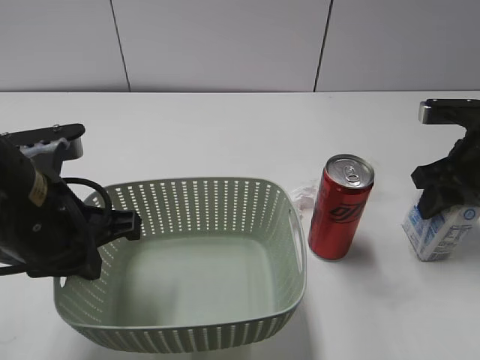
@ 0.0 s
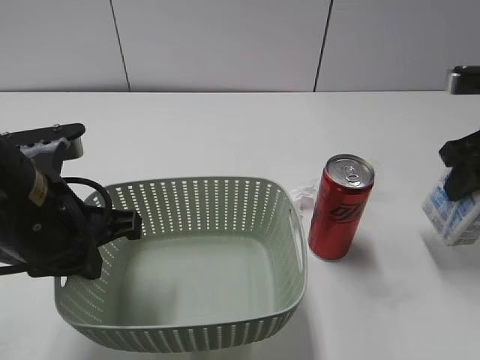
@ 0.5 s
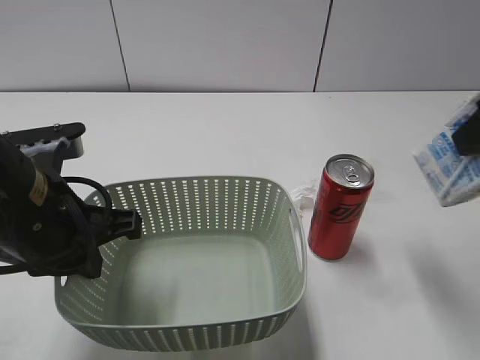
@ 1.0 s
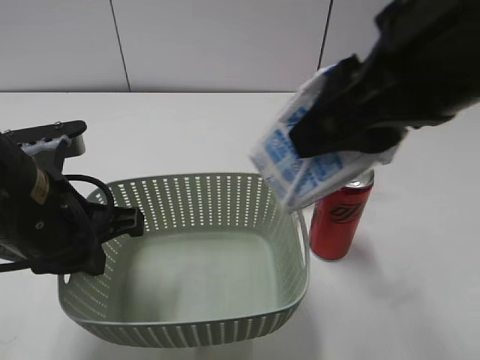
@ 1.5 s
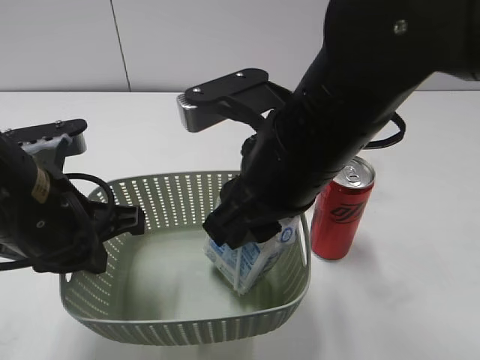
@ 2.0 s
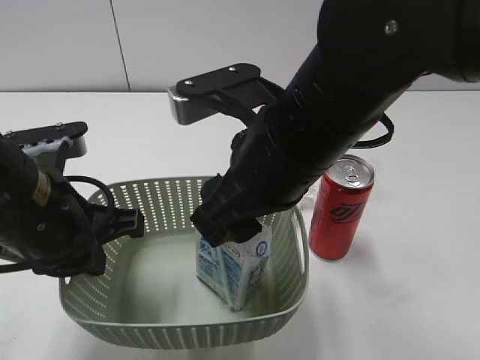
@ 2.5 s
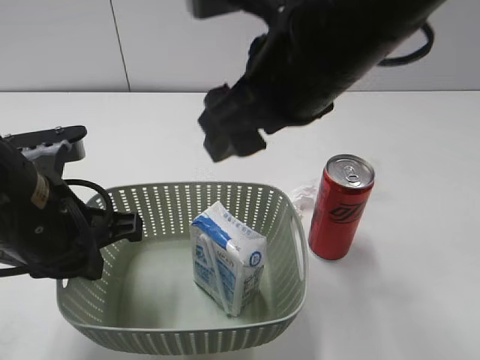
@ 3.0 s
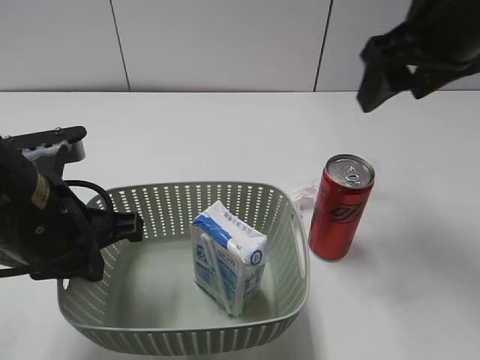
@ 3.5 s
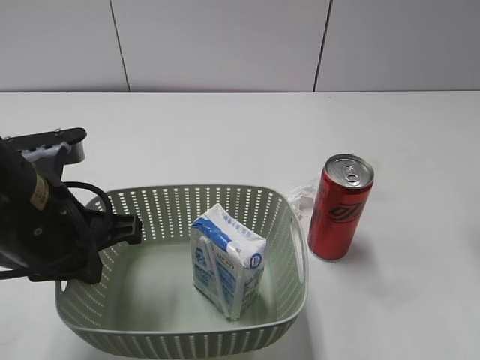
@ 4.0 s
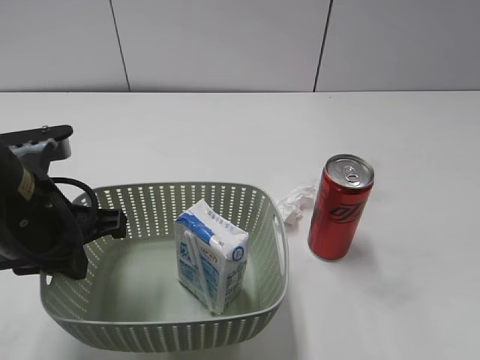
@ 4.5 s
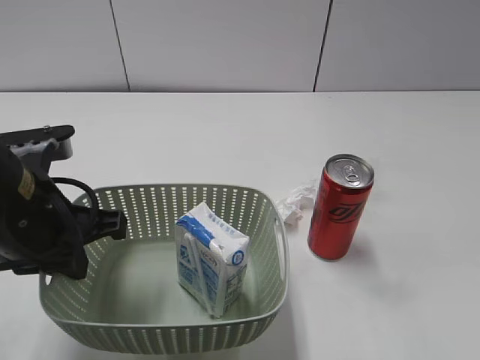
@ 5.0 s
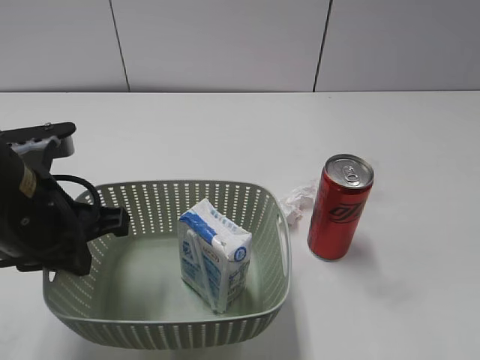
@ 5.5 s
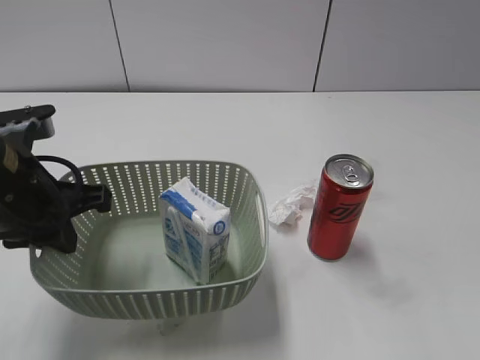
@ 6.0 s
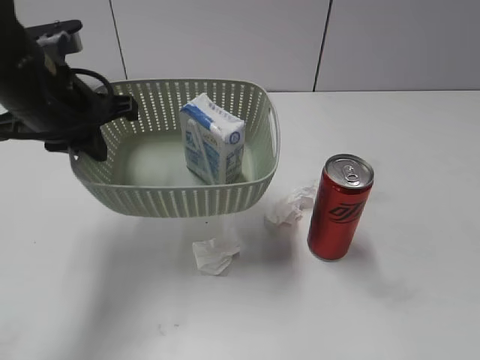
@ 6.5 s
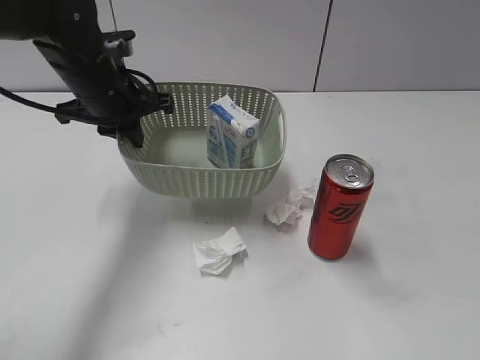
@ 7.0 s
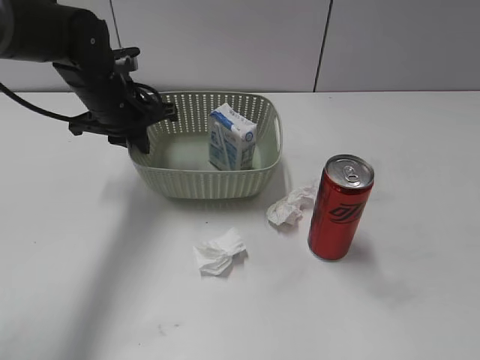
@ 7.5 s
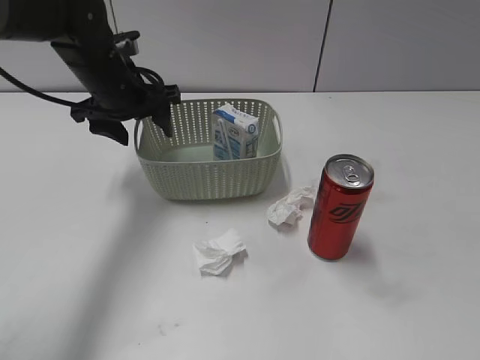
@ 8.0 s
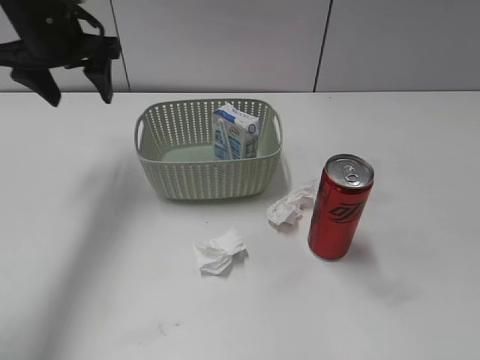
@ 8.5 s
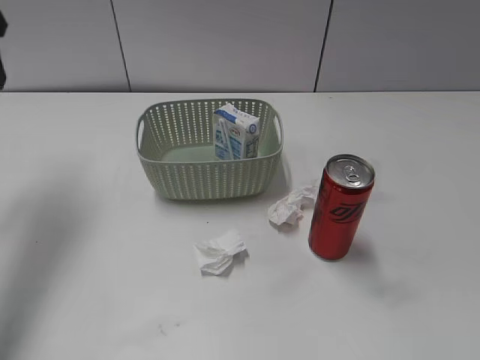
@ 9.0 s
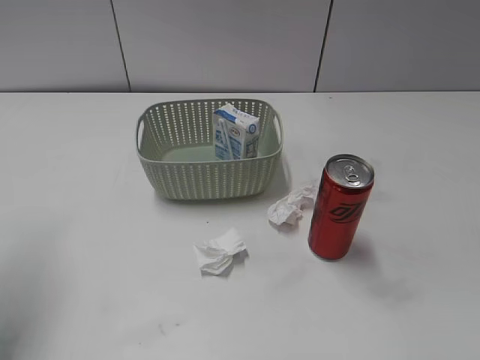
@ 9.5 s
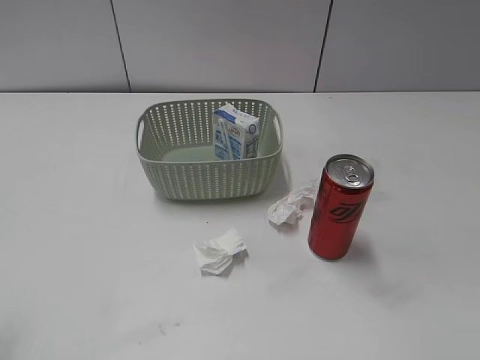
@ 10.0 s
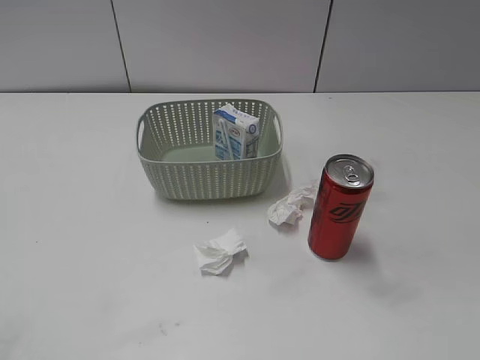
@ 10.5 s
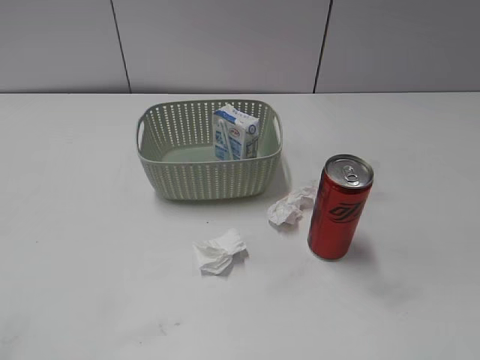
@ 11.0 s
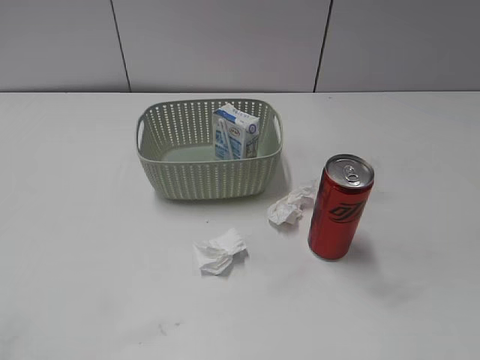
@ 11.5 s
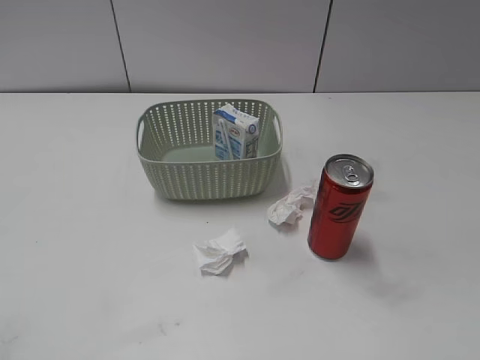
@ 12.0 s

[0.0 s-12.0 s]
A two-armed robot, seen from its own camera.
Step, 0.5 to 2.5 s: Place the milk in the basket with right gripper.
Step, 3.0 to 8.0 s: Place the basket on the table with left gripper.
0.0 to 2.0 s: The right gripper shifts roughly 25 cm to the left and backward.
2.0 to 4.0 s: The right gripper travels to the right by about 25 cm, and opens up.
4.0 to 6.0 s: The right gripper travels backward by roughly 30 cm.
6.0 to 8.0 s: The left gripper heads forward, covering about 20 cm, and opens its fingers.
8.0 to 10.0 s: The left gripper is displaced backward, to the left and upward by approximately 35 cm.

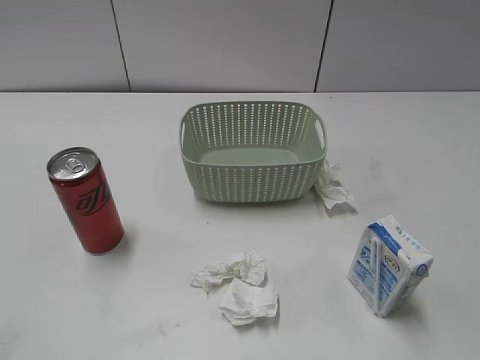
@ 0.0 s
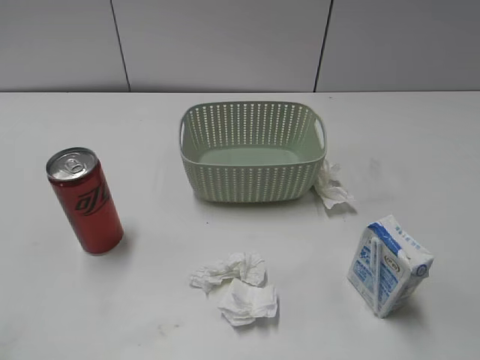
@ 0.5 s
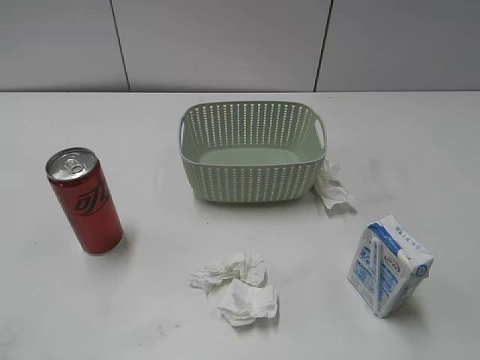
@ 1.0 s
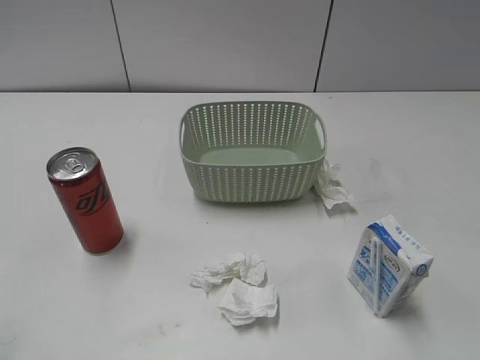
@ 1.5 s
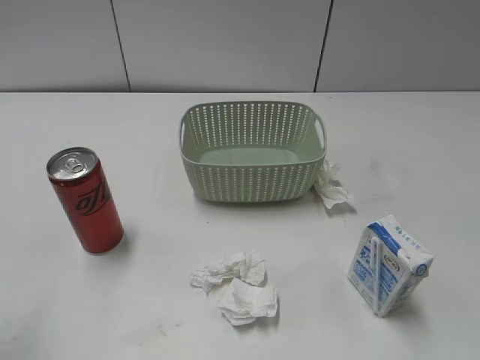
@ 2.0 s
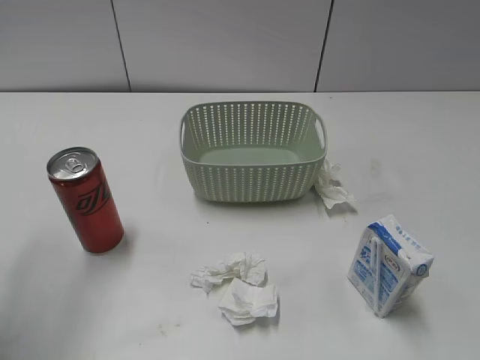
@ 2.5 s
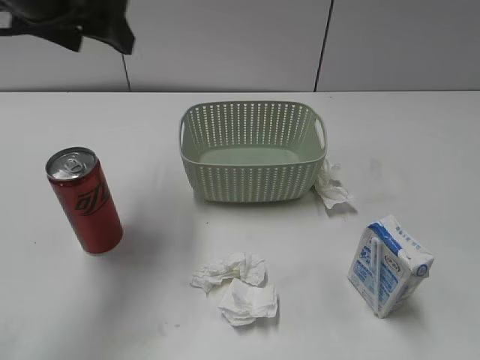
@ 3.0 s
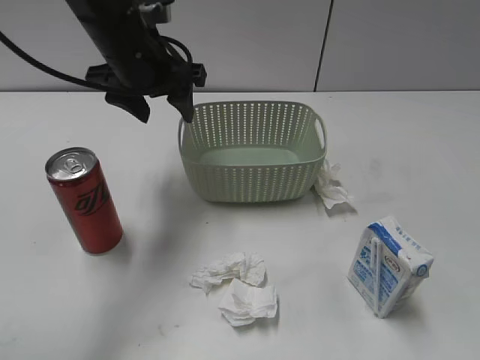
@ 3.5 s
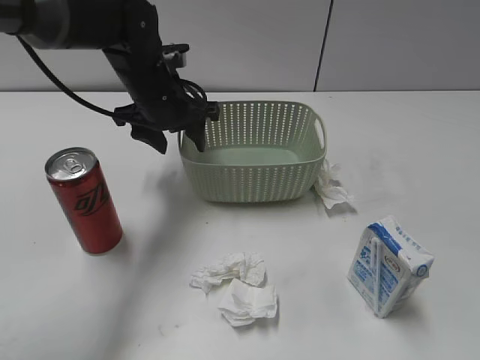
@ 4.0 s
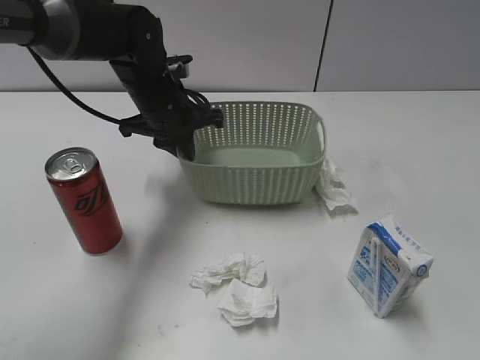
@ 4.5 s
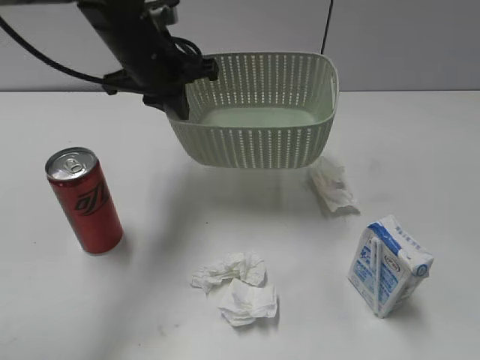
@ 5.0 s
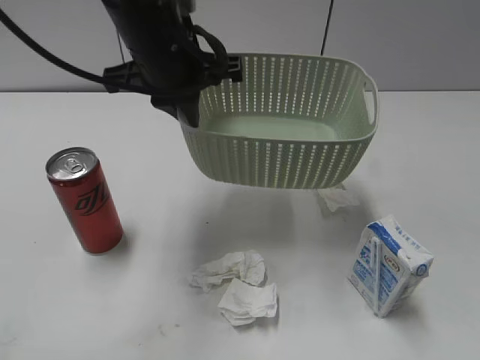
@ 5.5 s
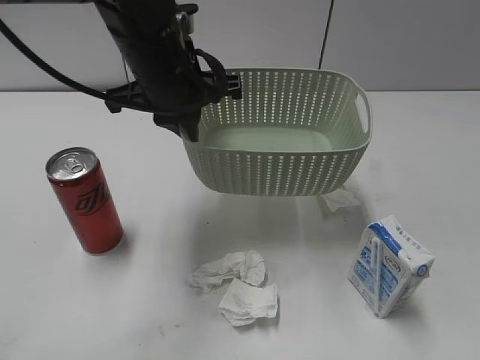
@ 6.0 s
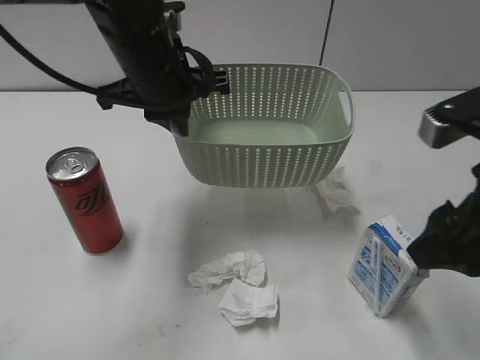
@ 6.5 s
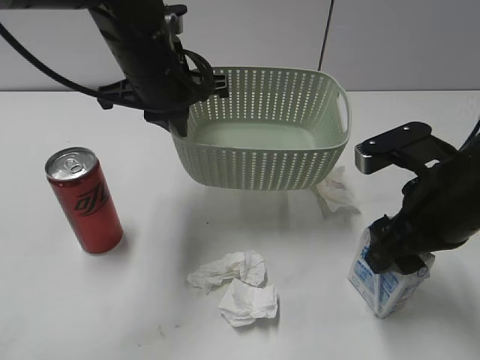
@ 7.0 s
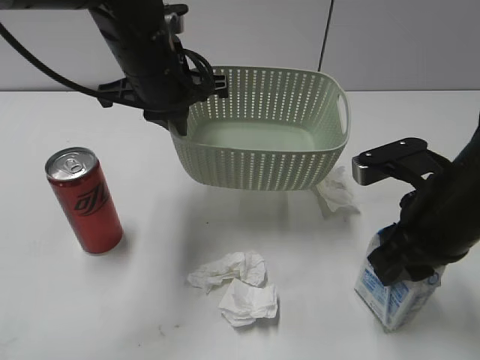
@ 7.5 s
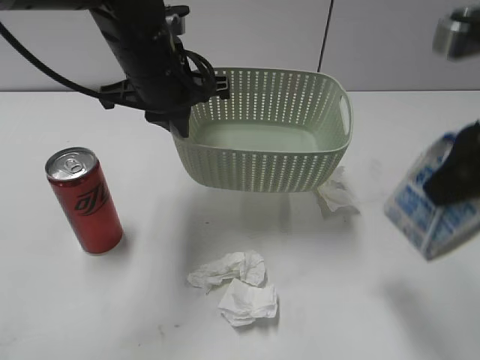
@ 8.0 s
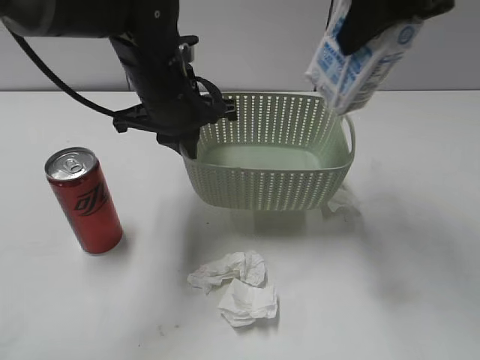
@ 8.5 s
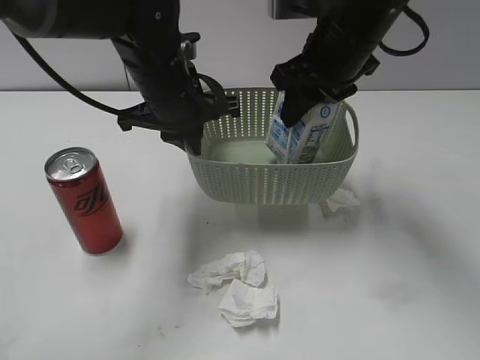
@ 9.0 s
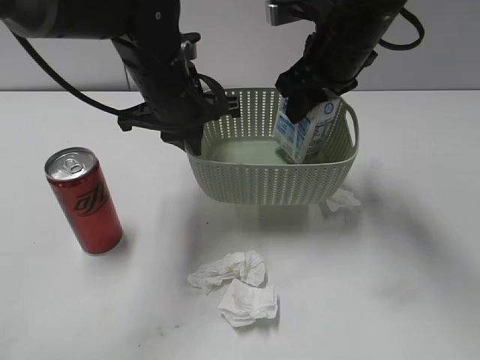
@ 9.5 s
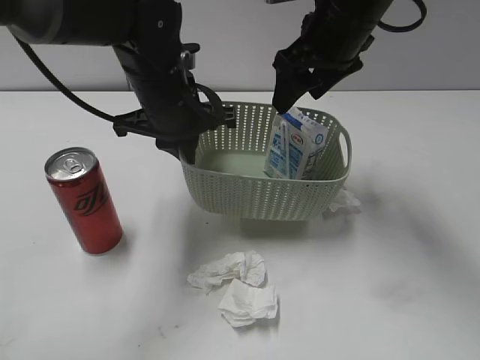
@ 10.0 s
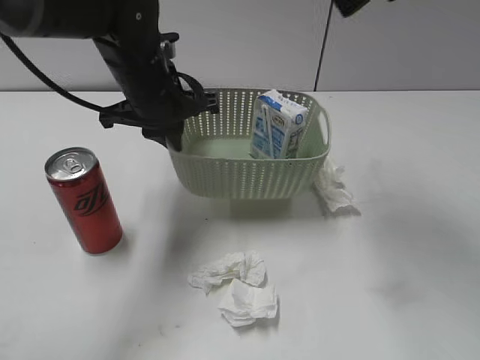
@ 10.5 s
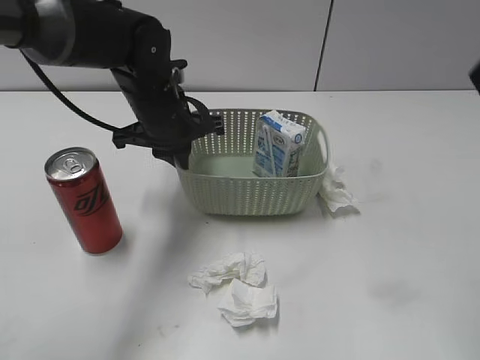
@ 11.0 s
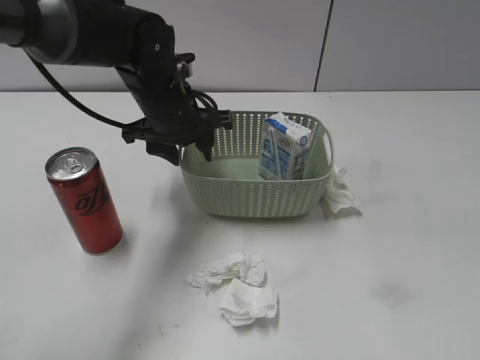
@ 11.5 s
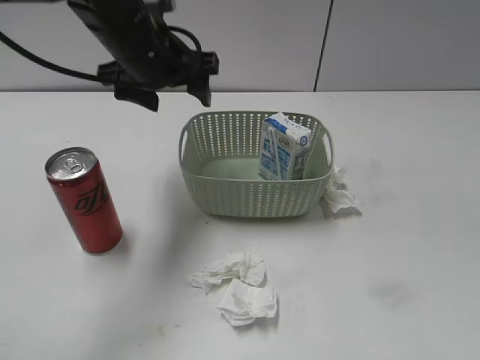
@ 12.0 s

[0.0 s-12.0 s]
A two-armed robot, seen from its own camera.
Step, 3.0 to 4.5 s: Grasp the basket with left gripper.
Step, 5.0 to 6.0 s: Lift the basket with left gripper.
Step, 6.5 to 7.5 s: Grasp the milk with right gripper.
Step, 8.0 to 10.0 s: Place the milk in the basket with right gripper.
Step, 10.5 to 11.5 s: Place the basket on the table with left gripper.
2.0 to 4.0 s: The left gripper is displaced forward, to the right and downward by some 40 cm.
4.0 to 6.0 s: The left gripper heads backward and upward, covering some 10 cm, and closes. The right gripper goes about 10 cm forward.
6.0 to 8.0 s: The right gripper is displaced forward and to the left by about 10 cm, moves some 10 cm downward and comes back, and closes.
8.0 to 10.0 s: The right gripper moves forward and to the left, some 20 cm, and opens.
10.0 to 12.0 s: The right gripper travels backward and to the right by some 40 cm, while the left gripper changes place by roughly 5 cm, and opens its fingers.

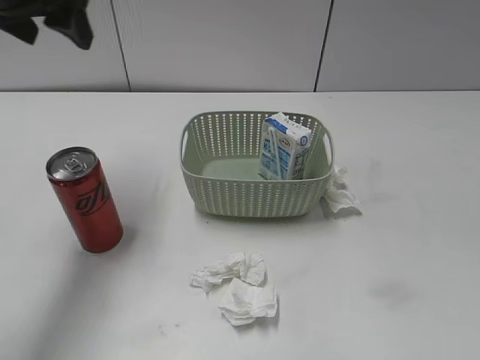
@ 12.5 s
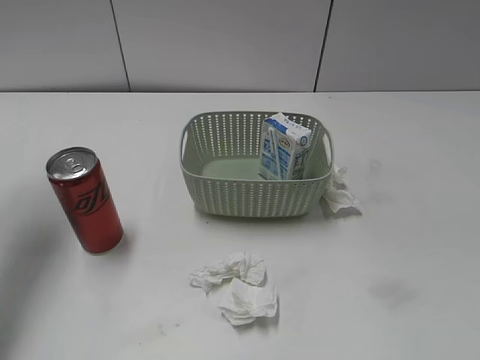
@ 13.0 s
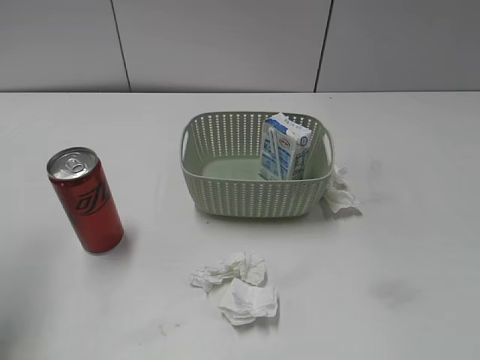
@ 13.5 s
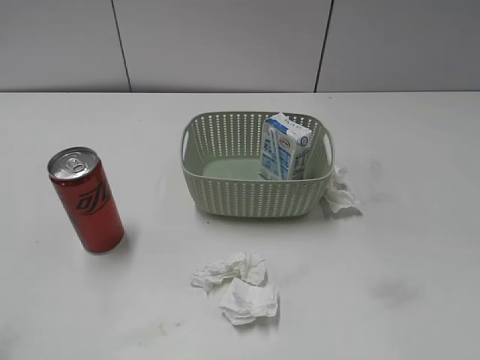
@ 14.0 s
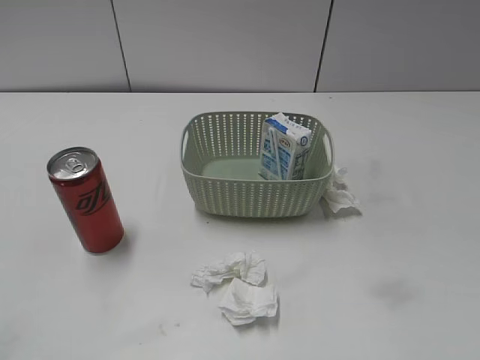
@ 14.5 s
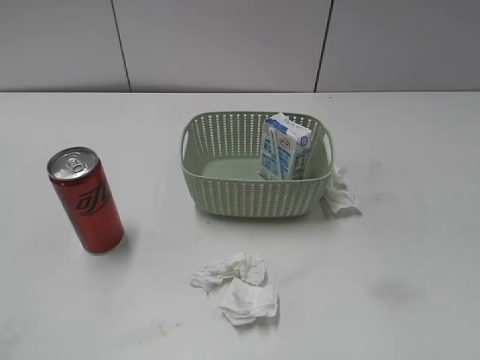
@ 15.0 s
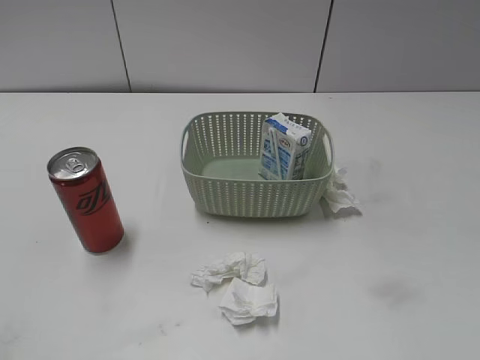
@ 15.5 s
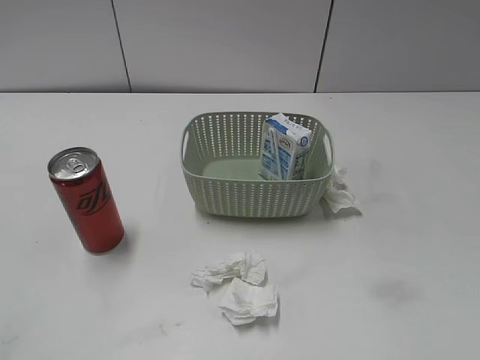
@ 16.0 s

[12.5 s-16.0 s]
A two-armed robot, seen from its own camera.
12.5 to 14.5 s: The left gripper goes about 35 cm backward.
